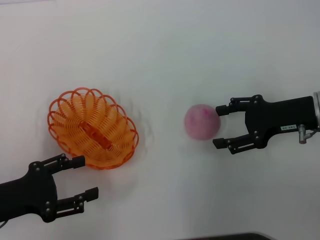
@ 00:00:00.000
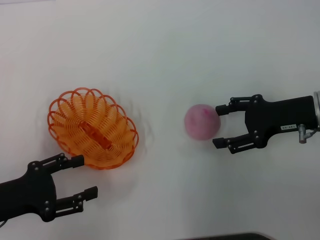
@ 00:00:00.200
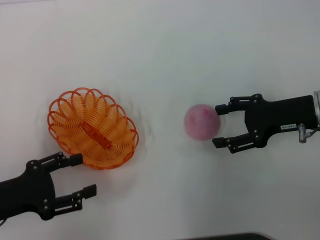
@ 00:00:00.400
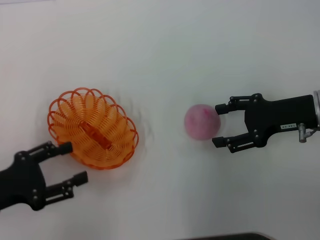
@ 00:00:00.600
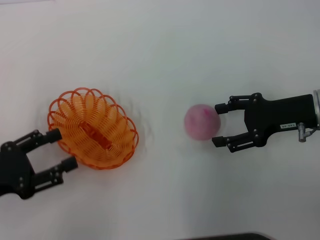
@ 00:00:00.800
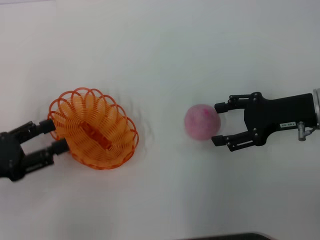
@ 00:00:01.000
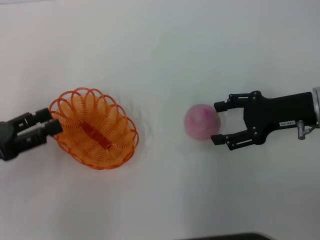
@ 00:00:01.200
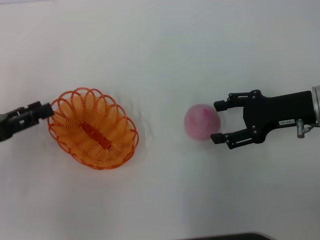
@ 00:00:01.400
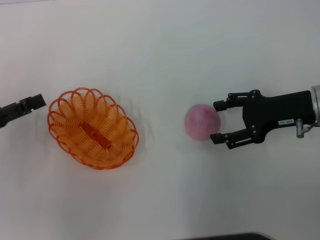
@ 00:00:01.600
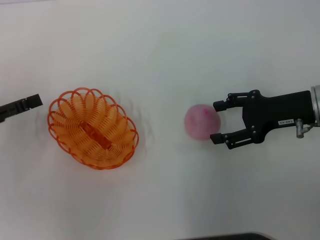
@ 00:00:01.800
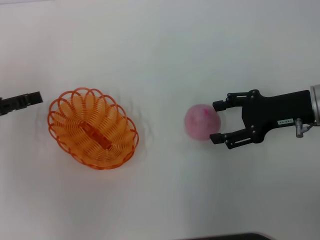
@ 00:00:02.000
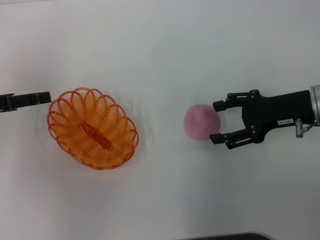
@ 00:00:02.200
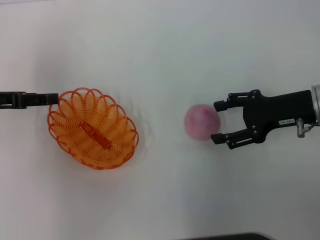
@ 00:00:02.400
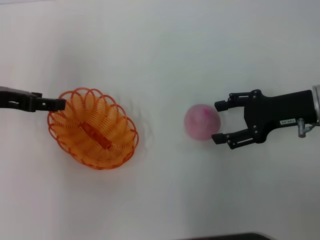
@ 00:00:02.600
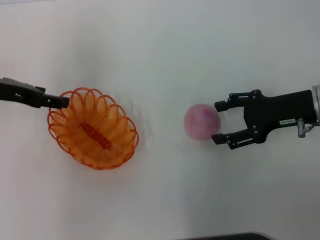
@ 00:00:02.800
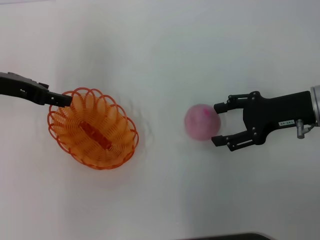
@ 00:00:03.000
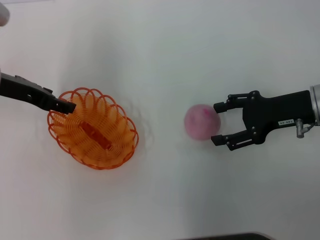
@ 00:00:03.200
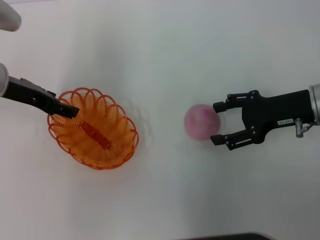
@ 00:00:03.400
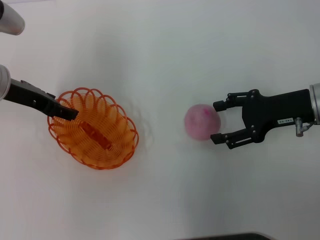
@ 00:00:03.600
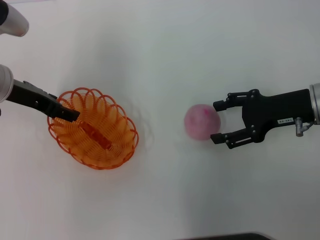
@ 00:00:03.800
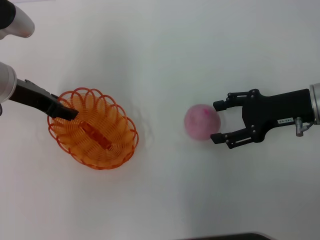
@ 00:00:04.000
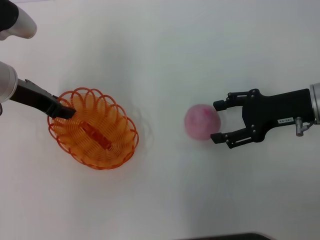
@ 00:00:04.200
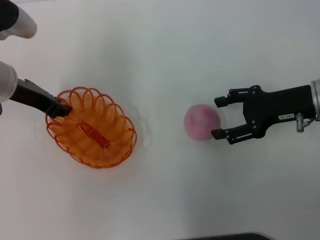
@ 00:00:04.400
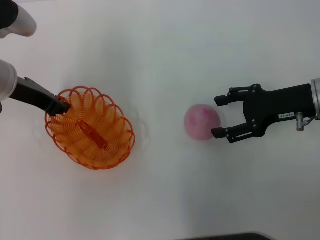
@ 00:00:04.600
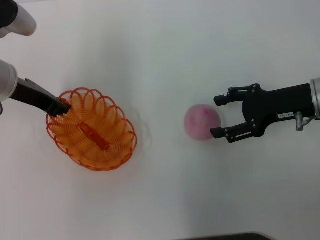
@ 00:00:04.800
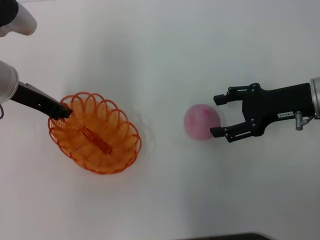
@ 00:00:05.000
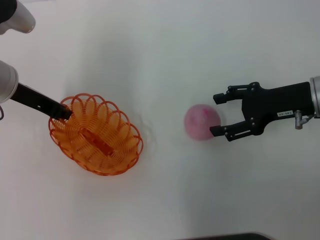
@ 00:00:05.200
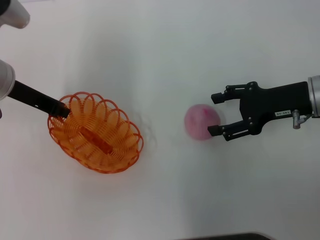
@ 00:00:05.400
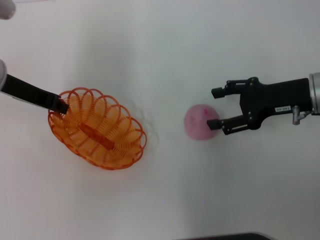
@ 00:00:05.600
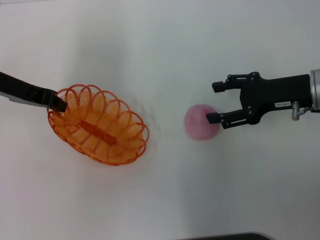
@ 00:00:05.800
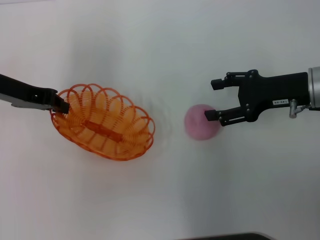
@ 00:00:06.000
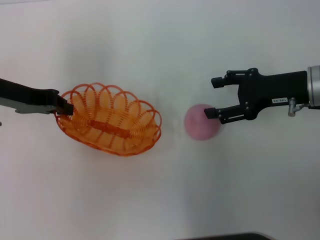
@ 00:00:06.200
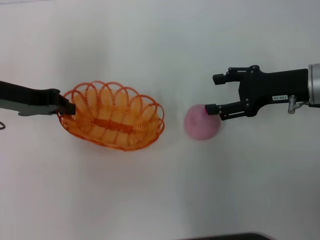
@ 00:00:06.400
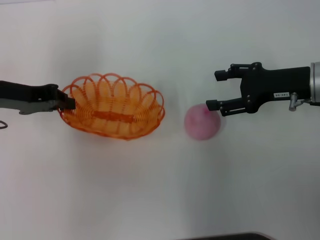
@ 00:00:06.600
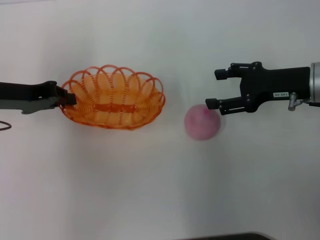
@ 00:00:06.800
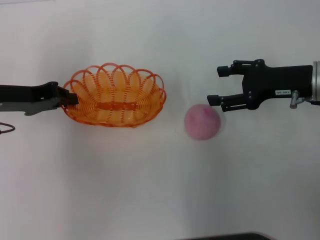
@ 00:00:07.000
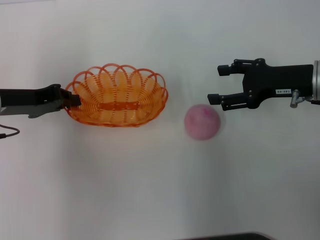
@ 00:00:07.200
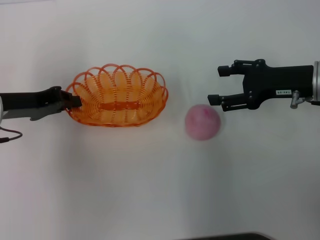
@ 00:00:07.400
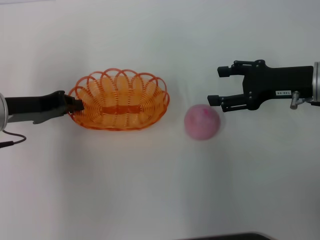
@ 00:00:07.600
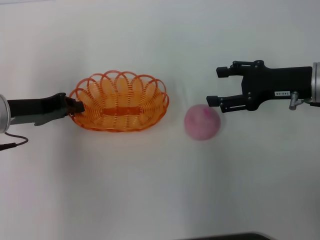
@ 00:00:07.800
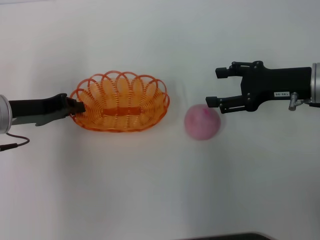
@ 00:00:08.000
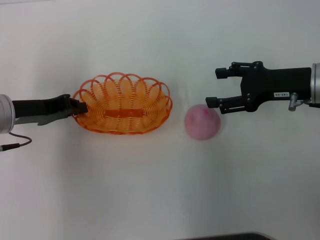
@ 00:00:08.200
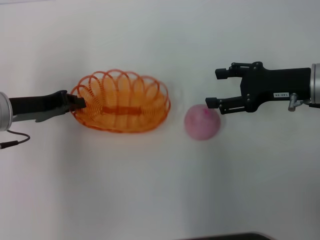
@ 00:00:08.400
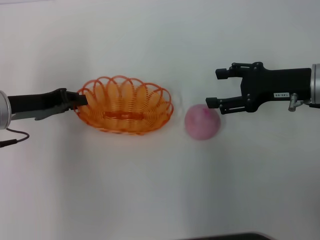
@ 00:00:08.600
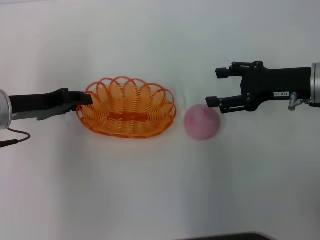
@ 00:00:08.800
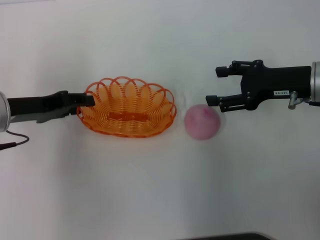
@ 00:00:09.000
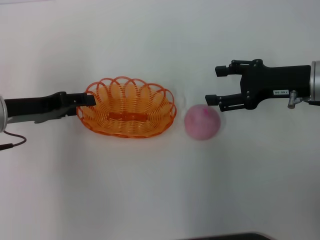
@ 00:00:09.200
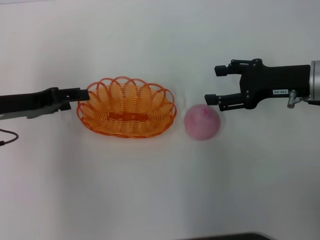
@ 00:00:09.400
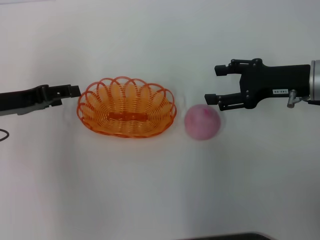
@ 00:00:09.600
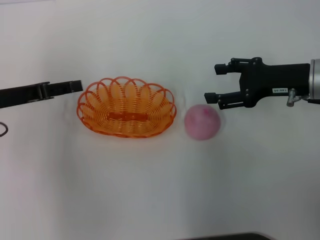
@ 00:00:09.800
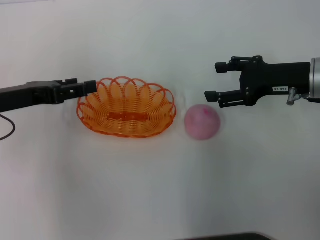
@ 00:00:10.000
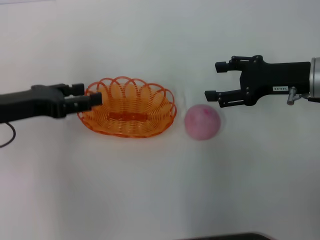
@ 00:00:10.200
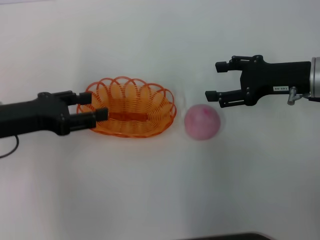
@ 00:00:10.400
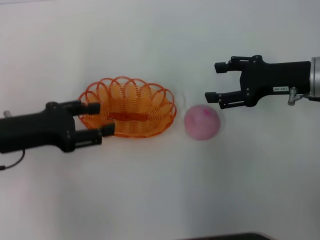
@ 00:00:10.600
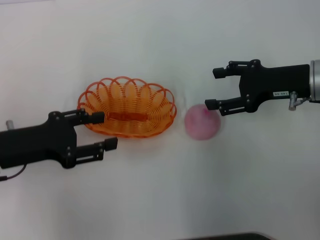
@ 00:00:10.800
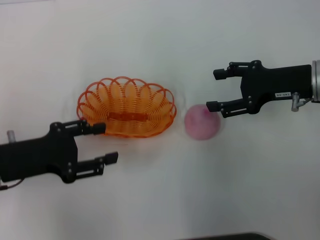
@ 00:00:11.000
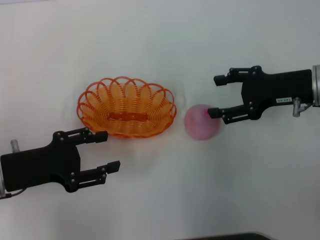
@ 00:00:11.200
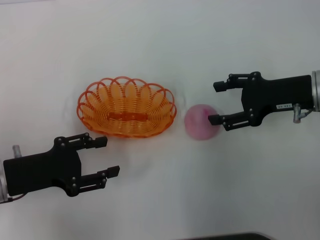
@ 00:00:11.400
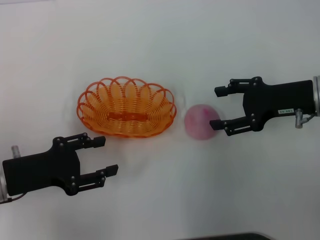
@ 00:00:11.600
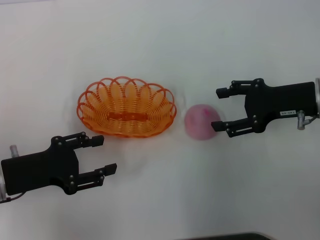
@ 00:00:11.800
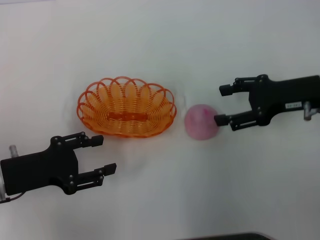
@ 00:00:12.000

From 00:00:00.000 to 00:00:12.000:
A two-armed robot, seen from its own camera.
Step, from 00:00:00.000 to 00:00:05.600: Pick up the basket with the left gripper.
Step, from 00:00:05.800 to 00:00:09.600: Place the basket in the center of view with the left gripper.
From 00:00:00.000 to 00:00:01.600: The left gripper shifts some 5 cm forward.
From 00:00:01.600 to 00:00:03.000: The left gripper moves forward, to the right and upward, some 15 cm.
From 00:00:03.000 to 00:00:04.400: There are only small adjustments of the grippers.
From 00:00:04.400 to 00:00:06.000: The left gripper closes up.
From 00:00:06.000 to 00:00:07.600: The left gripper moves downward, about 5 cm.
From 00:00:07.600 to 00:00:09.000: Both grippers stay about where they are.
From 00:00:09.000 to 00:00:10.400: The left gripper opens.
From 00:00:10.400 to 00:00:12.000: The left gripper goes about 10 cm downward and backward.

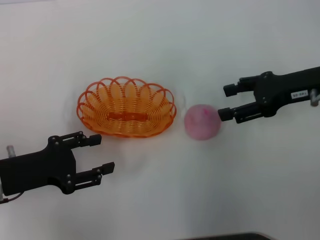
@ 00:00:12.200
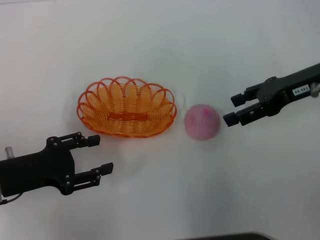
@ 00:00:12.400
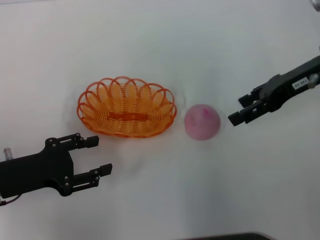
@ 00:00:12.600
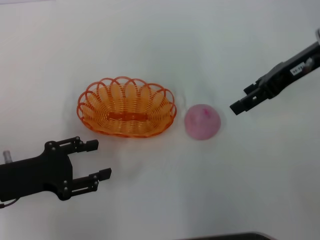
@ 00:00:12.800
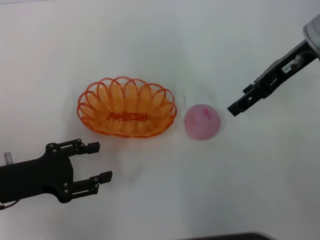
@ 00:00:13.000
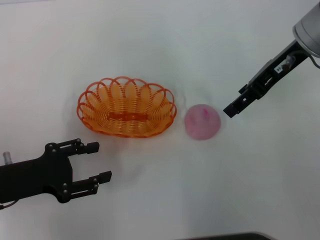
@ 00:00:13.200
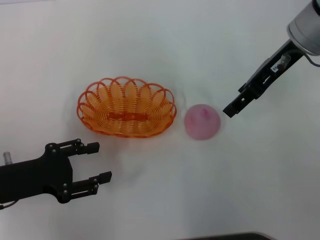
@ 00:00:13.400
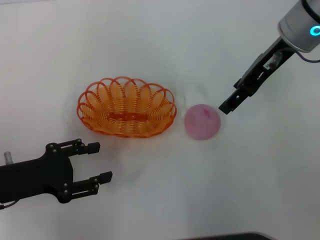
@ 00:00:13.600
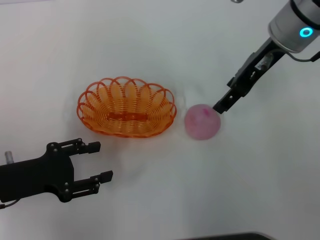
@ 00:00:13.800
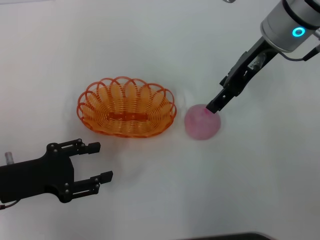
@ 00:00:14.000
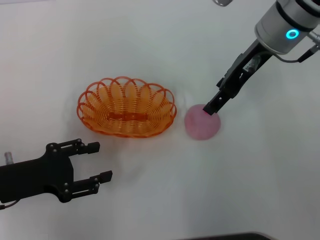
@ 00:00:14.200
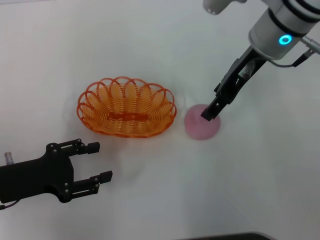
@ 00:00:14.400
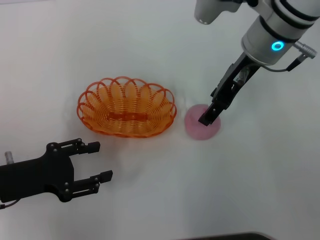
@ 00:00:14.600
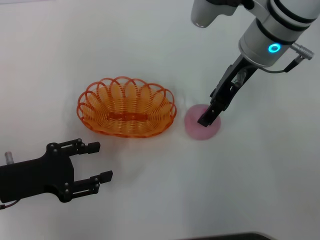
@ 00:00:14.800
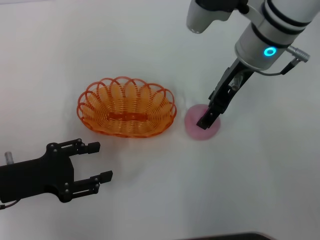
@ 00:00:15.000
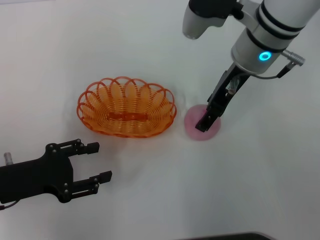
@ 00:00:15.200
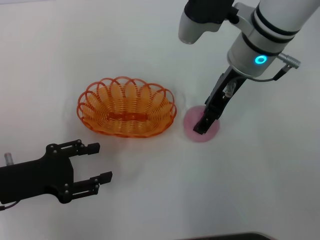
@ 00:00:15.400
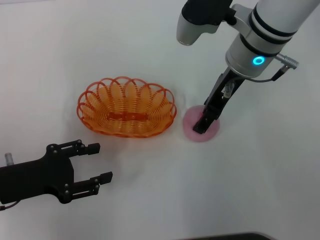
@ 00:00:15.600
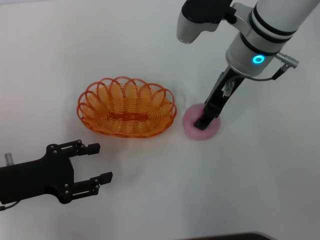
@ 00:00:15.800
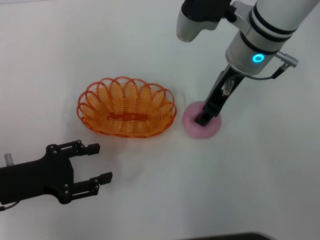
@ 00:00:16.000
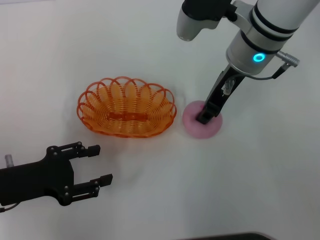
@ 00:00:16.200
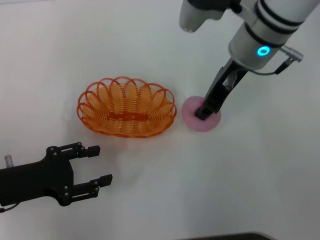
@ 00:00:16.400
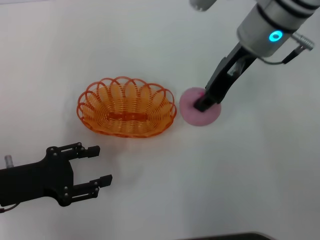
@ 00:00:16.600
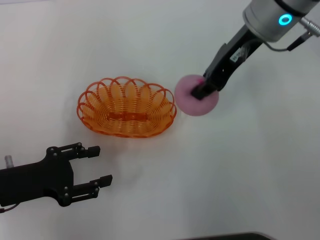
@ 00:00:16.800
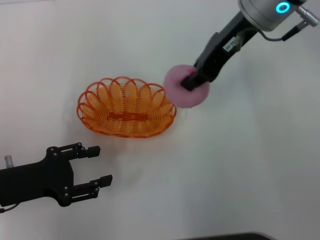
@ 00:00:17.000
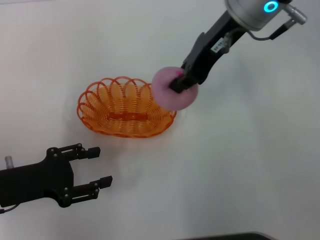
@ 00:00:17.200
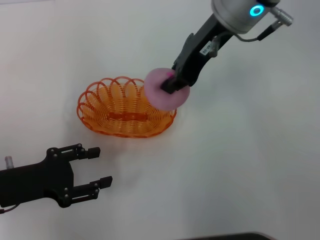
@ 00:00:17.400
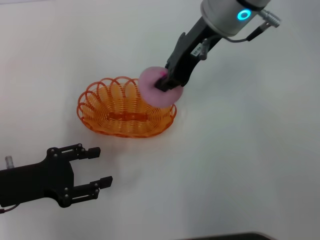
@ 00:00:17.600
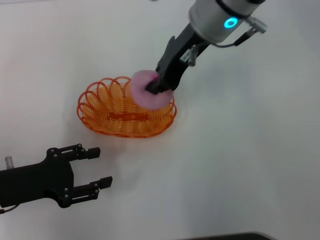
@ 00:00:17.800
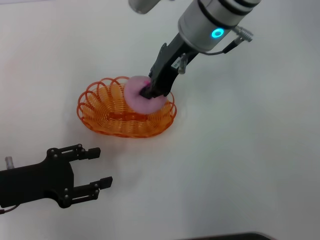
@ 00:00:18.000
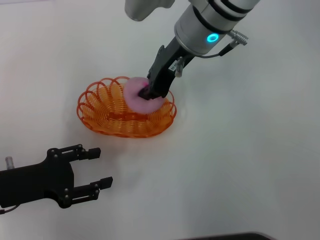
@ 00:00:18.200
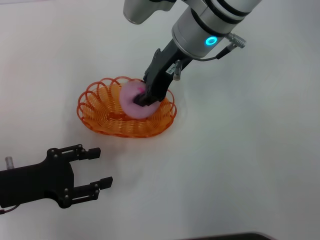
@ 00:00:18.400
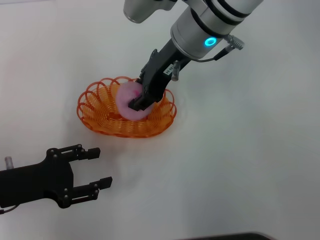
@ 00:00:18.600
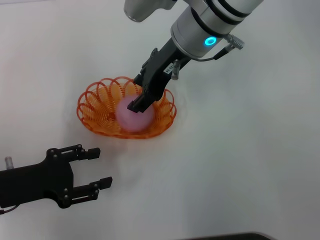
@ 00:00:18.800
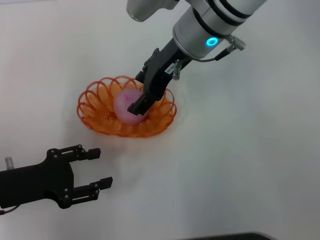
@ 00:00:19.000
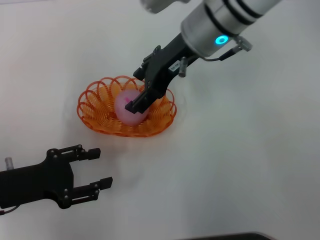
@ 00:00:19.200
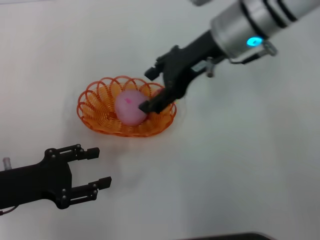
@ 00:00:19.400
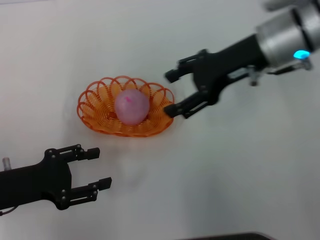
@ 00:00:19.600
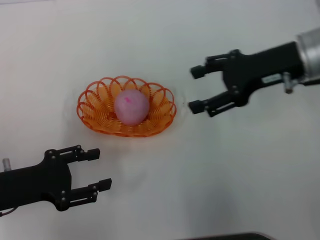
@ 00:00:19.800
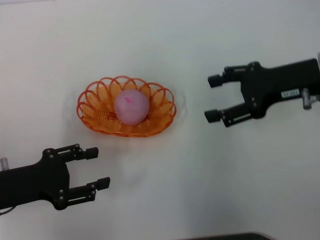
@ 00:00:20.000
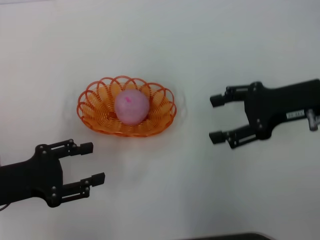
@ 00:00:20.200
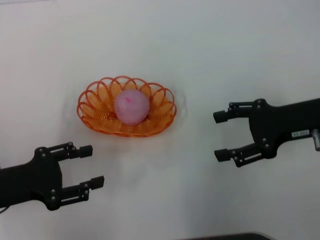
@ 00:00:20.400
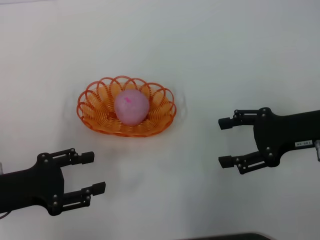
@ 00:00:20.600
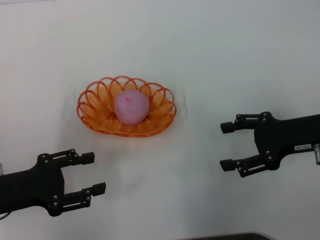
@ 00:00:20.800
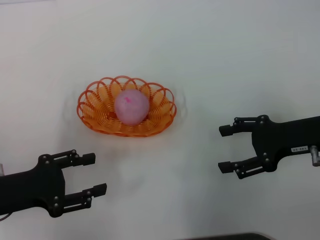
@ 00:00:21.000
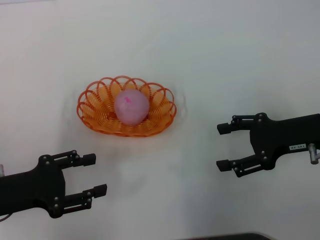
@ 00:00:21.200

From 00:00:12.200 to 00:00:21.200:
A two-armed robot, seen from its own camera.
Step, from 00:00:12.200 to 00:00:16.600: Pick up the peach with the right gripper.
Step, from 00:00:17.000 to 00:00:19.400: Place the peach into the basket with the right gripper.
From 00:00:12.200 to 00:00:13.800: The right gripper travels to the left, upward and forward by some 15 cm.
From 00:00:13.800 to 00:00:15.200: The right gripper shifts by approximately 5 cm.
From 00:00:15.200 to 00:00:16.600: The right gripper closes up.
From 00:00:16.600 to 00:00:18.200: The right gripper is displaced to the left by some 5 cm.
From 00:00:18.200 to 00:00:19.800: The right gripper heads to the right, covering about 15 cm, and opens.
From 00:00:19.800 to 00:00:21.200: The right gripper travels downward and backward by some 10 cm.
